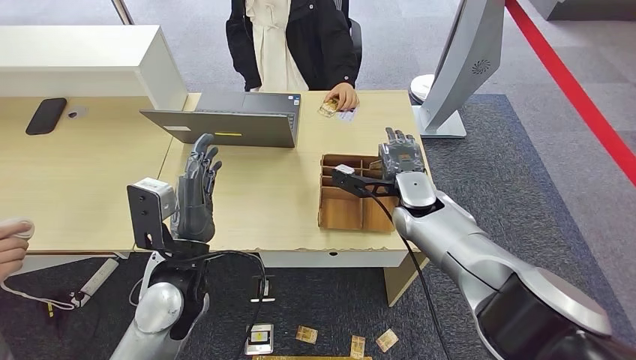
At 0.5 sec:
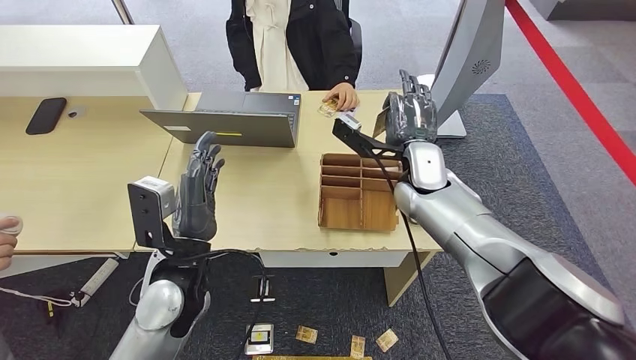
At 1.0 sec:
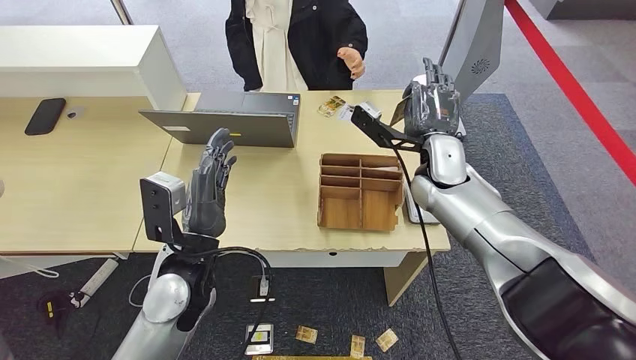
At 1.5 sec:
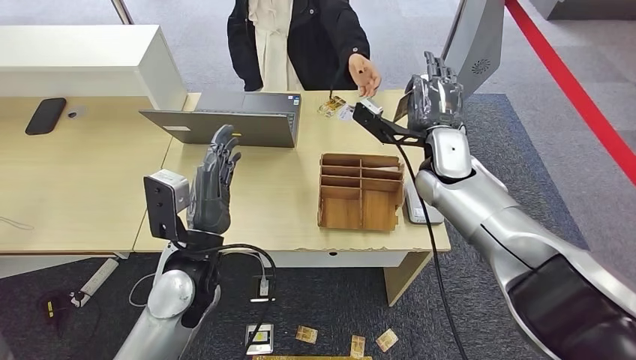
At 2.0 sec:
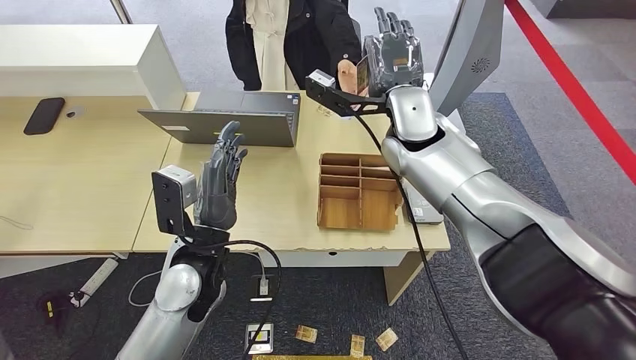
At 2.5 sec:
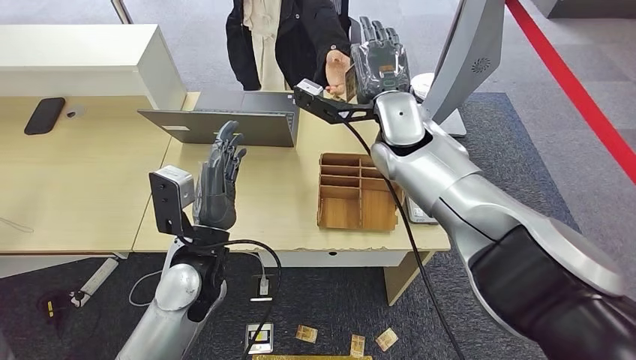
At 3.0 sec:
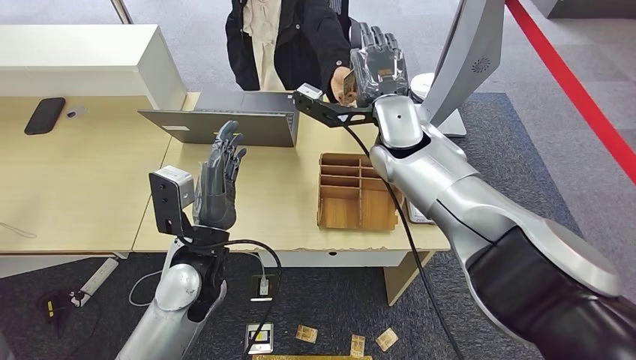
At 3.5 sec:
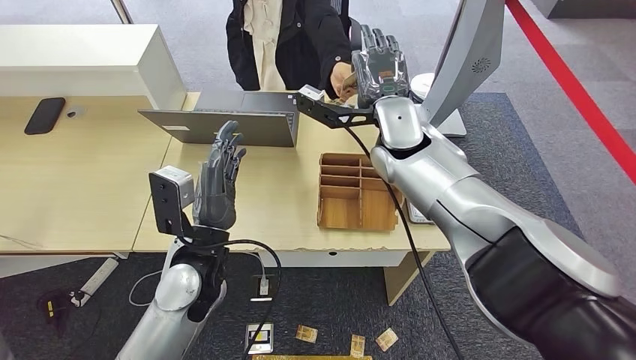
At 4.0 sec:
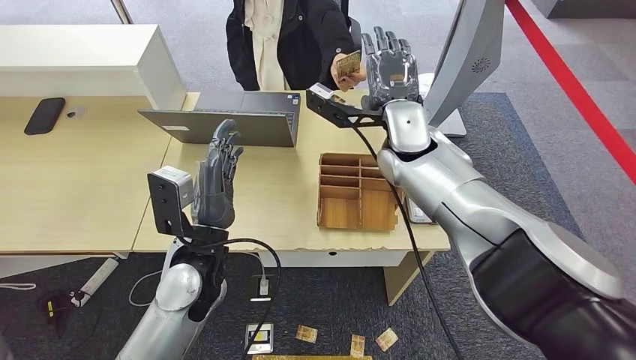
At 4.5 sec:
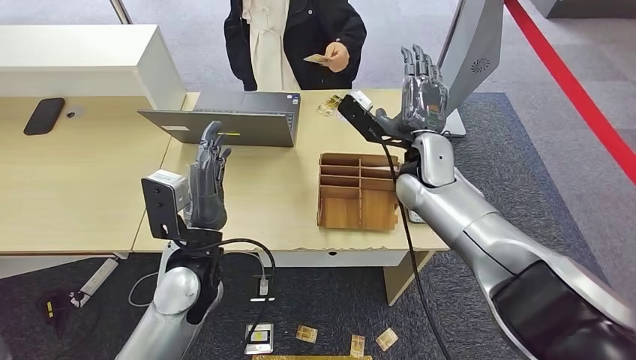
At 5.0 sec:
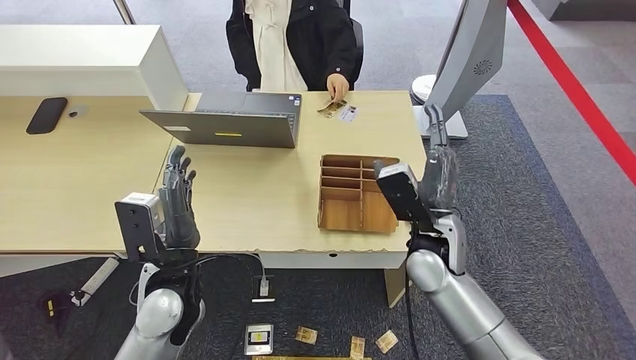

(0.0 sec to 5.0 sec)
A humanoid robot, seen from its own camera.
Step, 1.5 sec - 5.0 sec: Hand the room key to the person.
